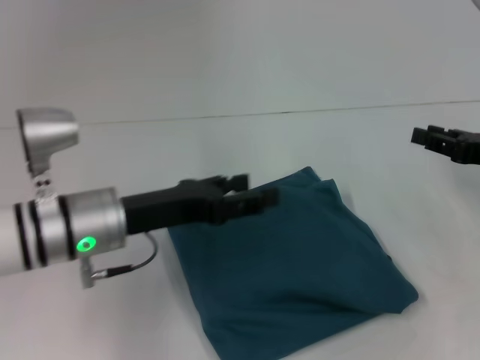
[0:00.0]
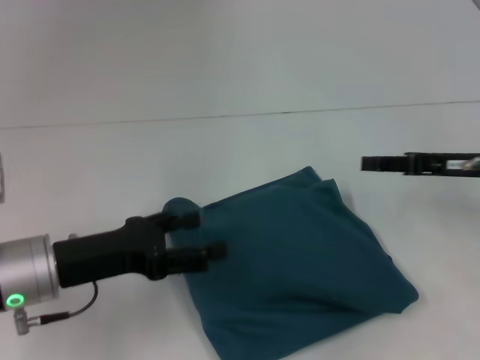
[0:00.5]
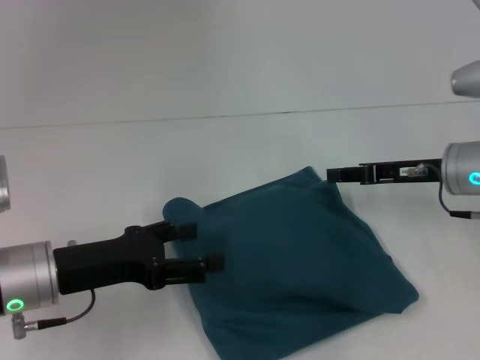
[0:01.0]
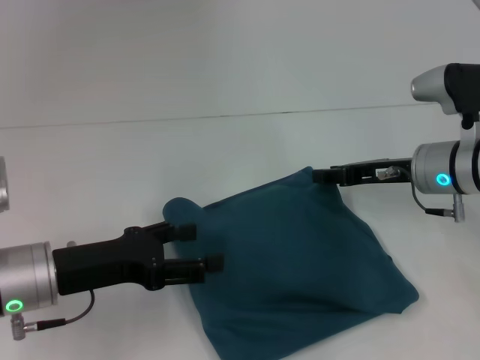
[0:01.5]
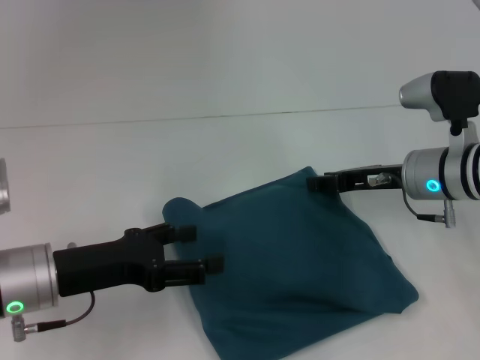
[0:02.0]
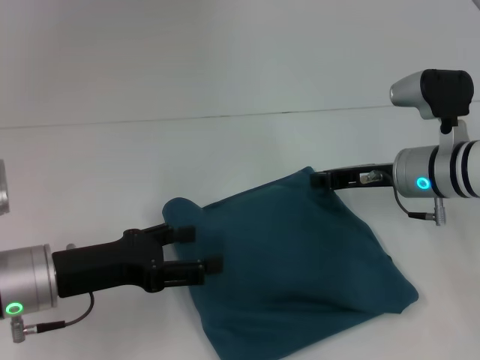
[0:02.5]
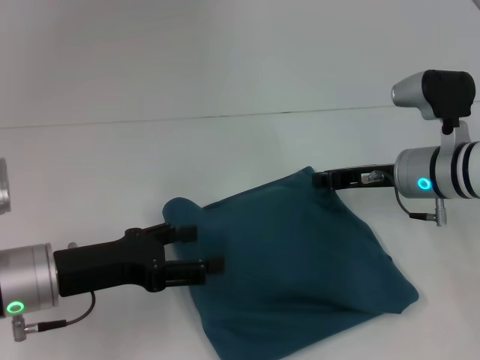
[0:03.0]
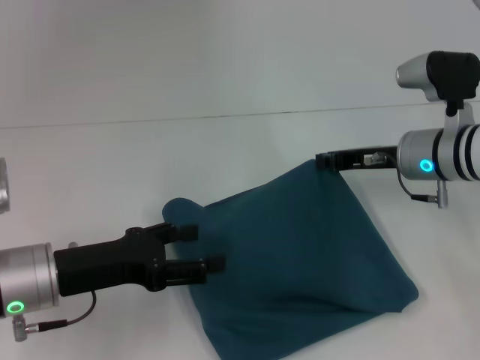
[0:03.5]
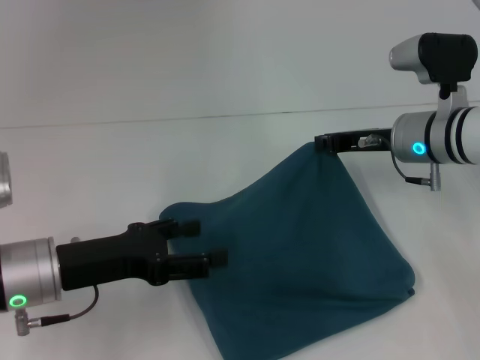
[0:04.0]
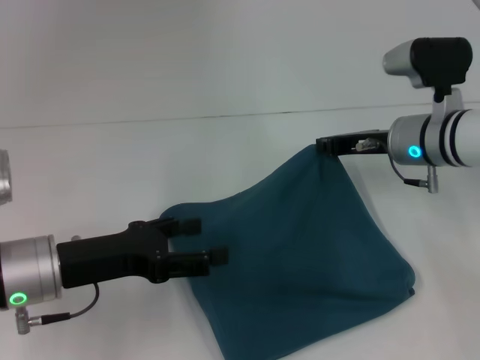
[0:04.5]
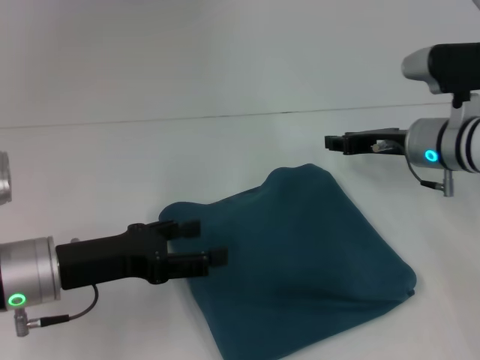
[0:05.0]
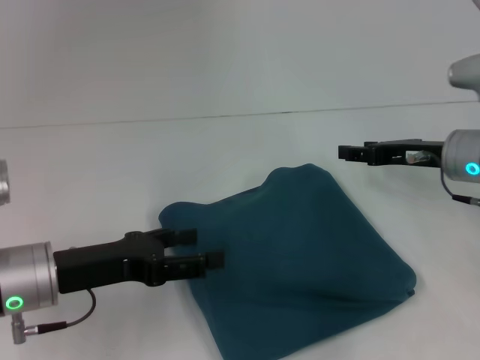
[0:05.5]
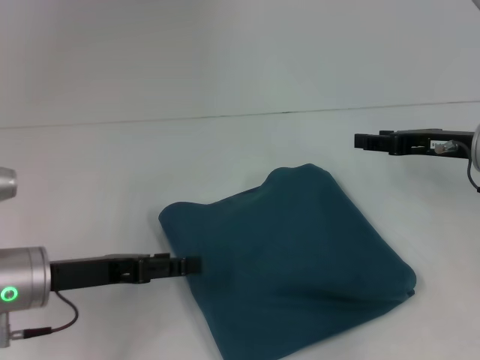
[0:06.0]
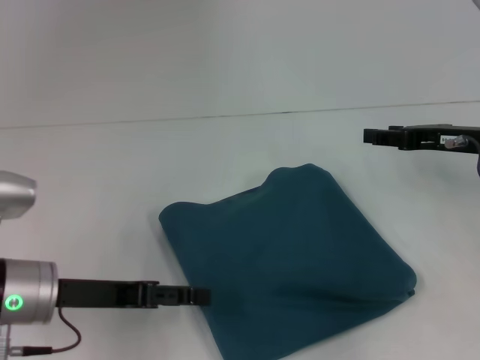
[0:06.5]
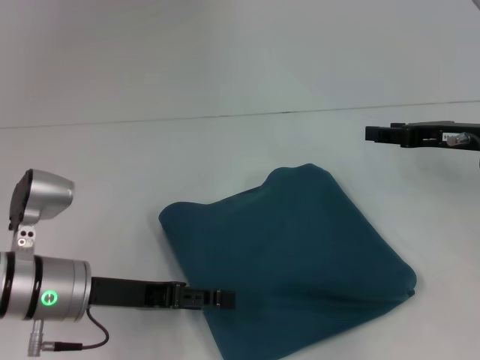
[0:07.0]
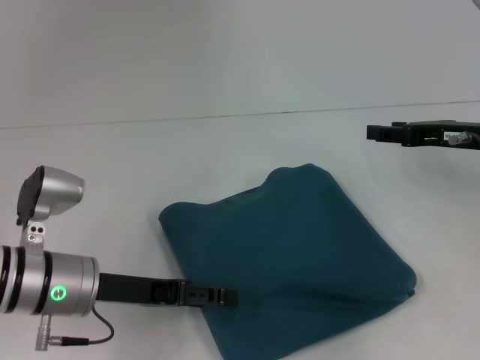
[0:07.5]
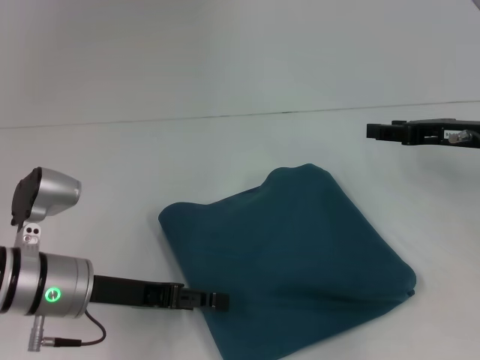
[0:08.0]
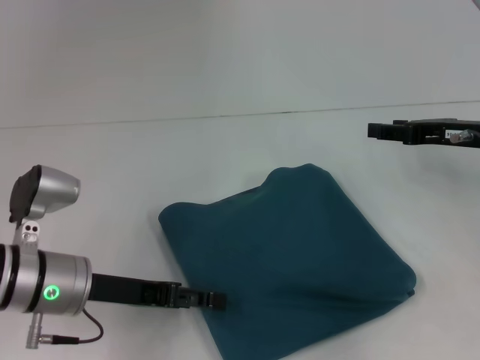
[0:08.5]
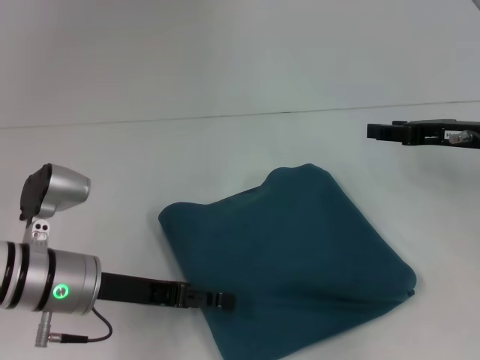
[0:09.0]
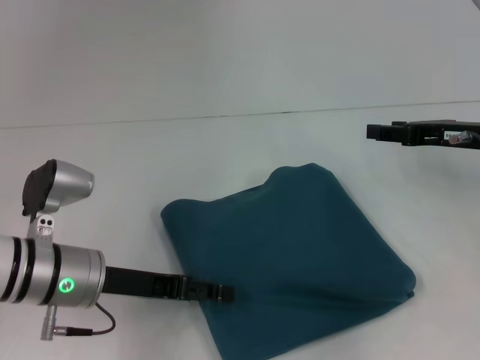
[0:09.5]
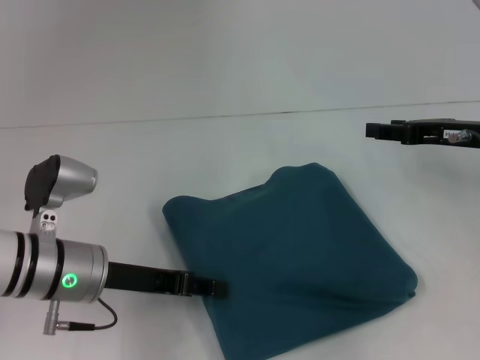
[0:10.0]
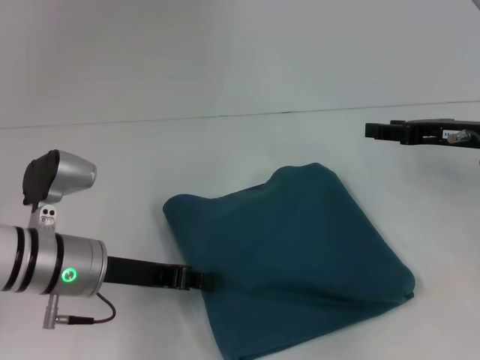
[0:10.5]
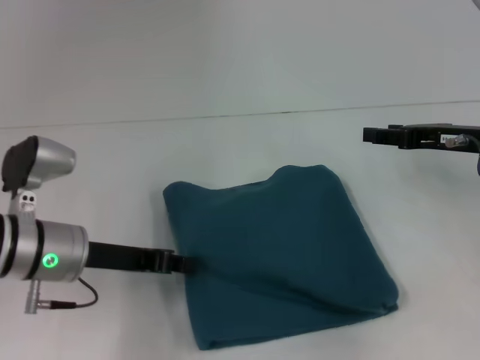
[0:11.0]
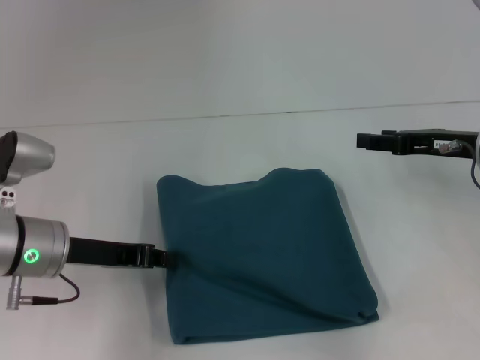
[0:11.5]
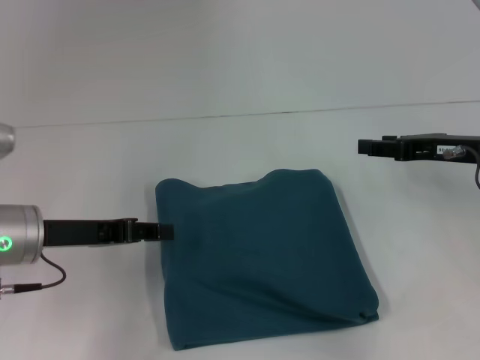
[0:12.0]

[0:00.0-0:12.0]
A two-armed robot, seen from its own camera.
0:00.0 to 0:02.0: The left gripper is displaced to the left by approximately 5 cm. Meanwhile the right gripper travels to the left and forward by some 15 cm.
0:02.0 to 0:04.0: The right gripper closes its fingers.
0:04.0 to 0:06.0: The right gripper travels to the right by roughly 5 cm, and opens its fingers.
0:06.0 to 0:10.0: The grippers stay close to where they were, moving slightly.
0:10.0 to 0:12.0: The left gripper travels to the left by approximately 5 cm, and closes.

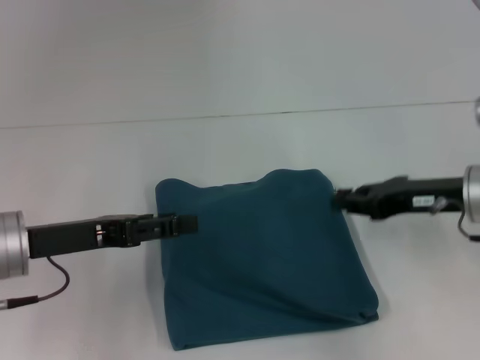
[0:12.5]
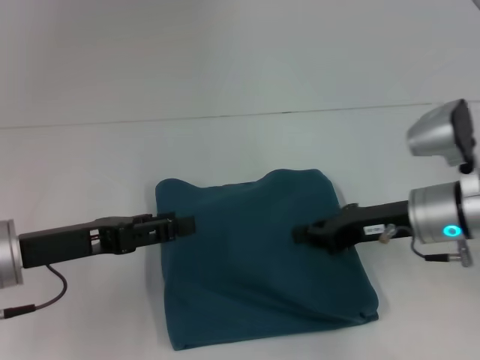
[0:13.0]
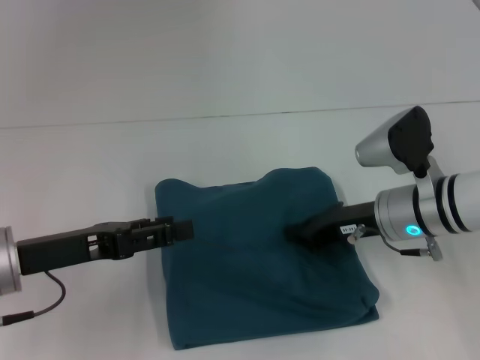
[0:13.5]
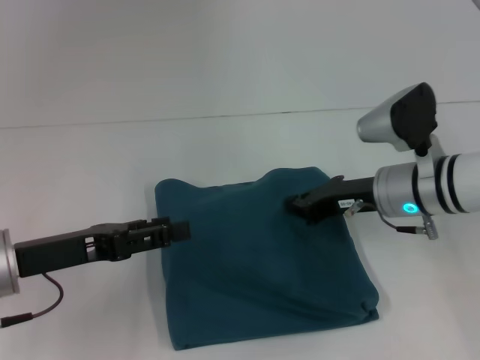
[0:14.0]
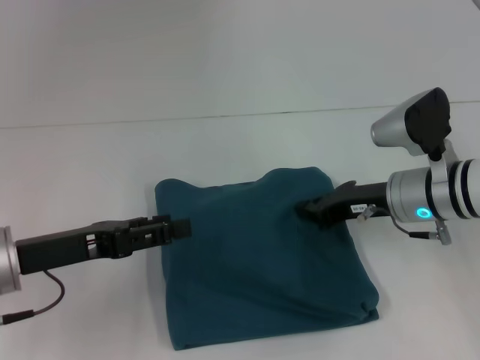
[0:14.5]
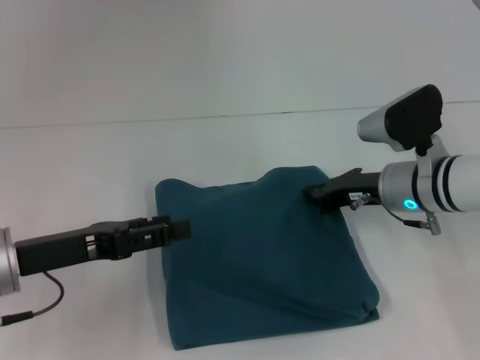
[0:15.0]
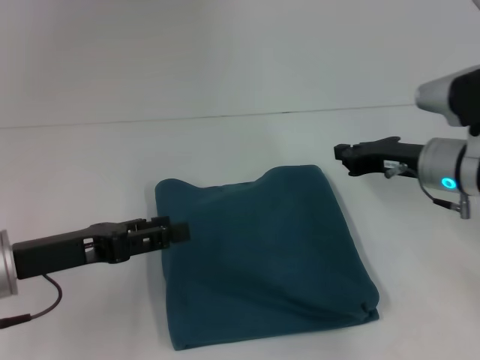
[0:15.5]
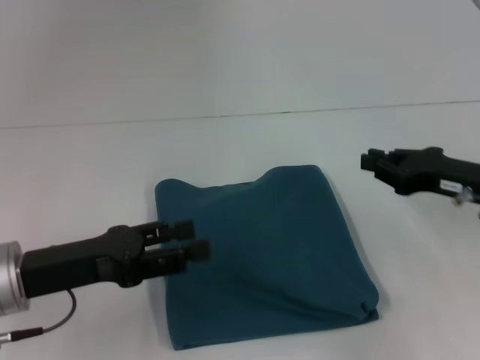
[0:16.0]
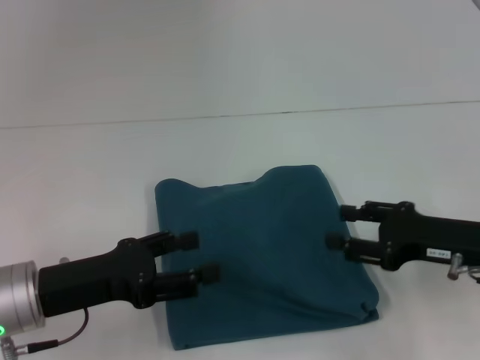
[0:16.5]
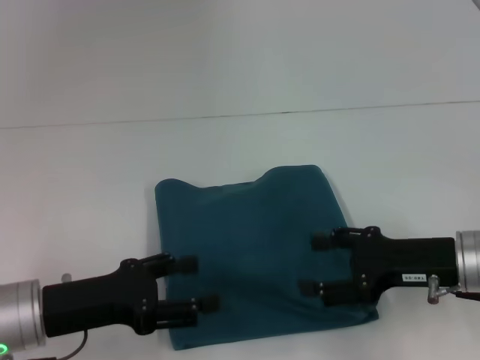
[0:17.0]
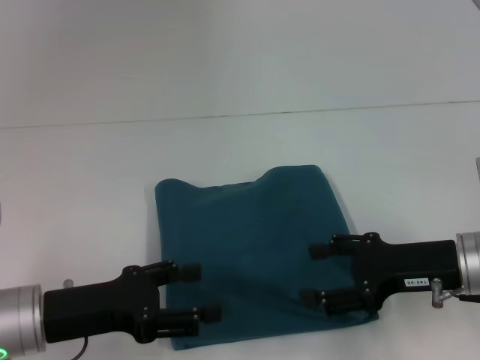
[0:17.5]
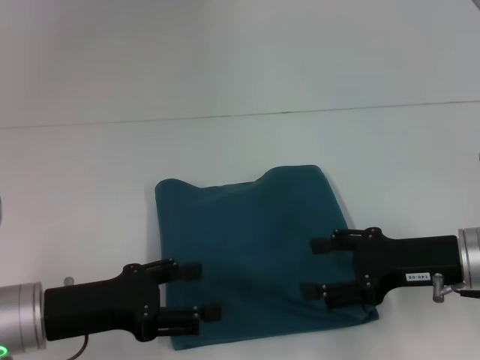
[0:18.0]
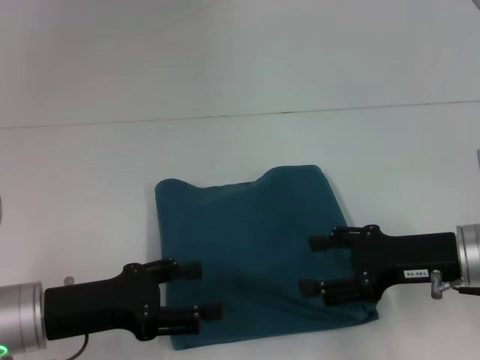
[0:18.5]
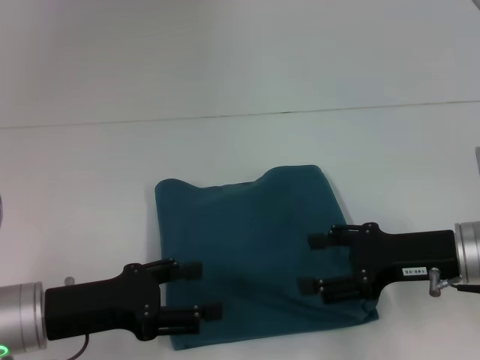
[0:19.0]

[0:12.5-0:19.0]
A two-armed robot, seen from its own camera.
0:12.5 to 0:14.5: The right gripper moves to the left, roughly 5 cm, and closes its fingers.
0:14.5 to 0:17.0: The right gripper travels backward by roughly 10 cm, and opens its fingers.
0:17.0 to 0:19.0: Both grippers stay about where they are.

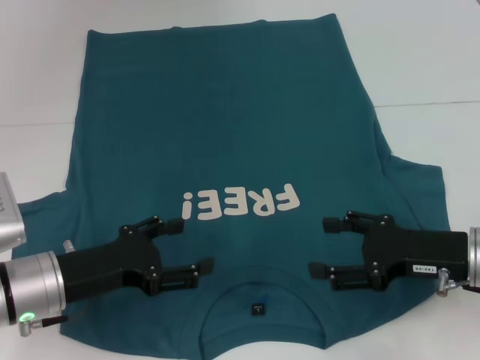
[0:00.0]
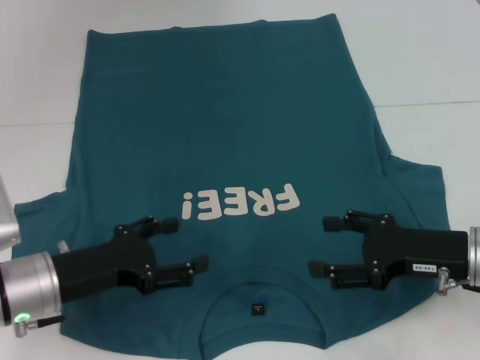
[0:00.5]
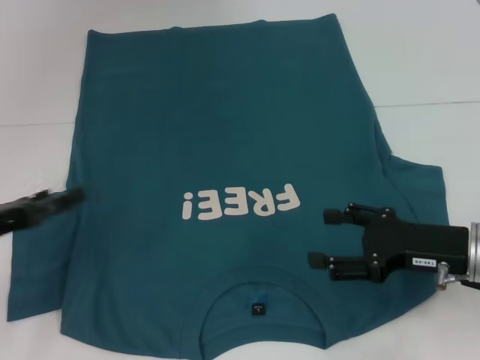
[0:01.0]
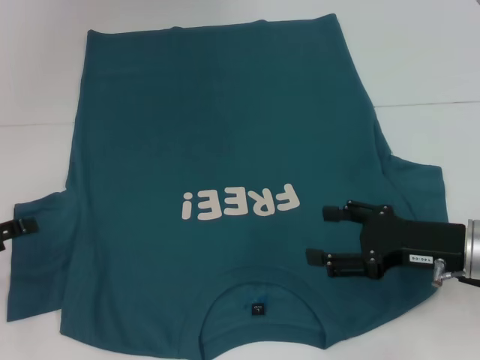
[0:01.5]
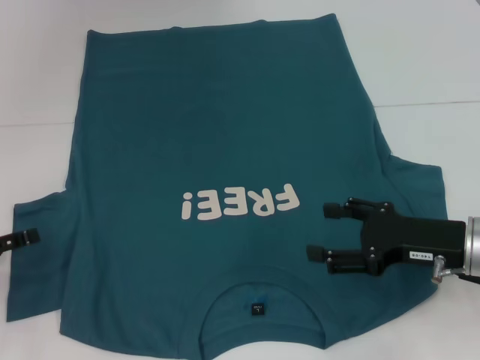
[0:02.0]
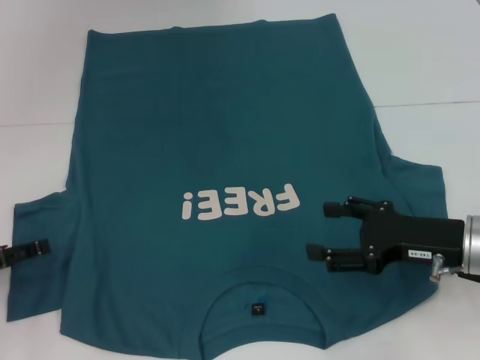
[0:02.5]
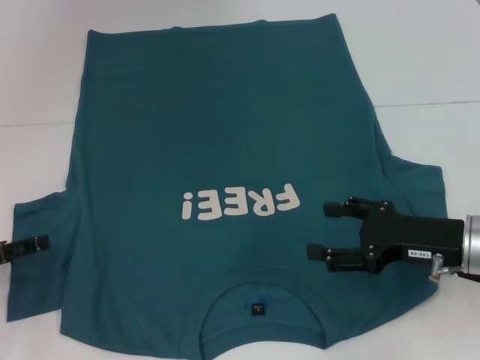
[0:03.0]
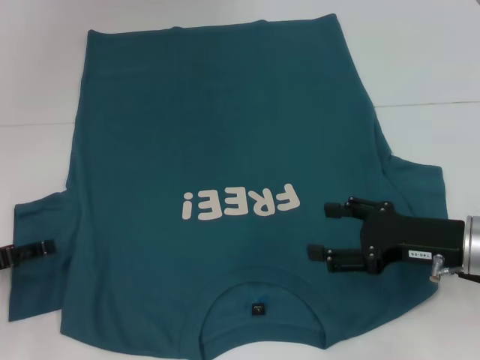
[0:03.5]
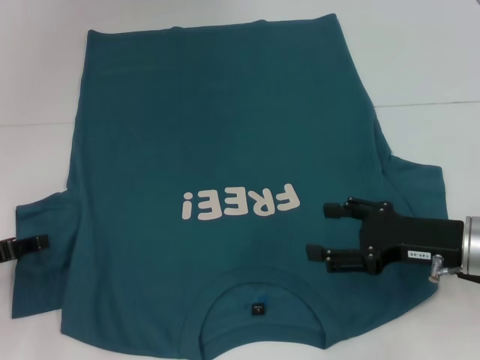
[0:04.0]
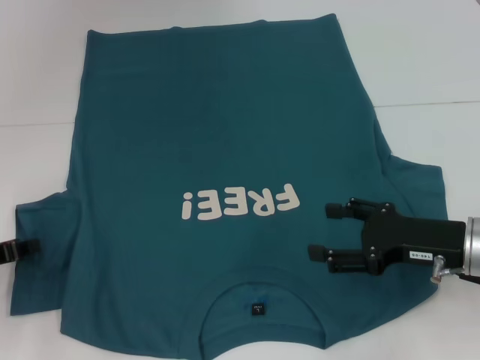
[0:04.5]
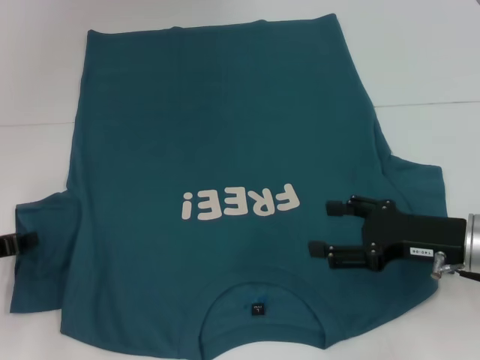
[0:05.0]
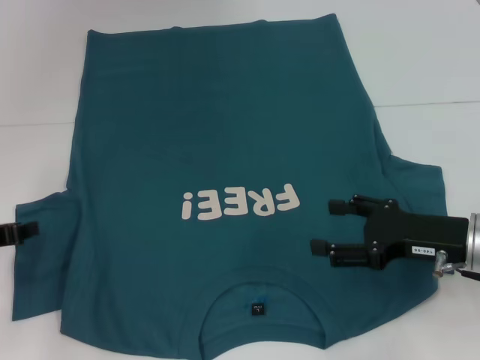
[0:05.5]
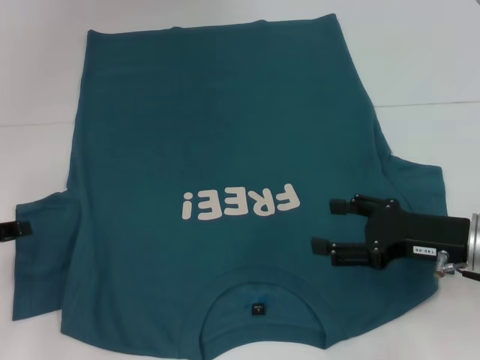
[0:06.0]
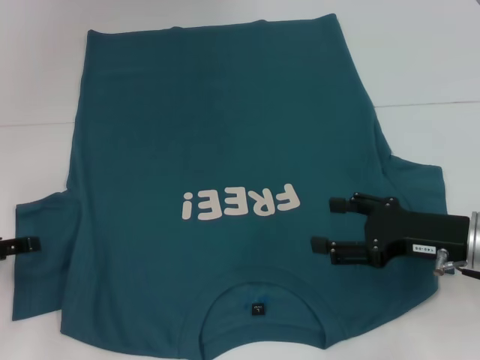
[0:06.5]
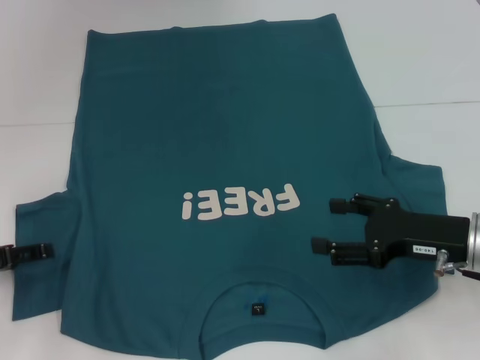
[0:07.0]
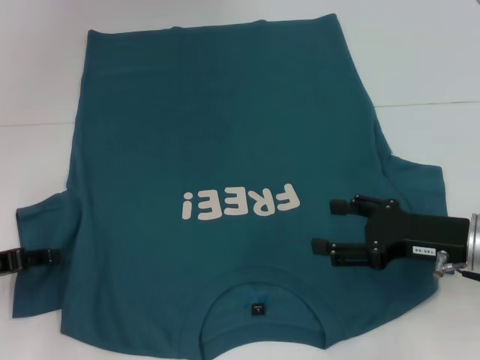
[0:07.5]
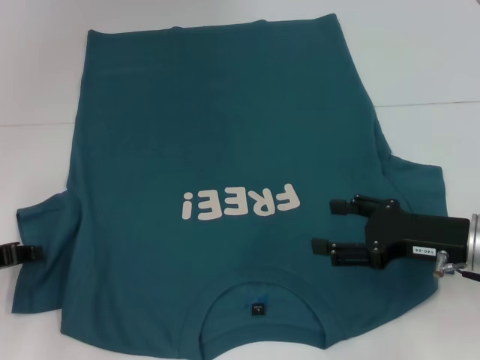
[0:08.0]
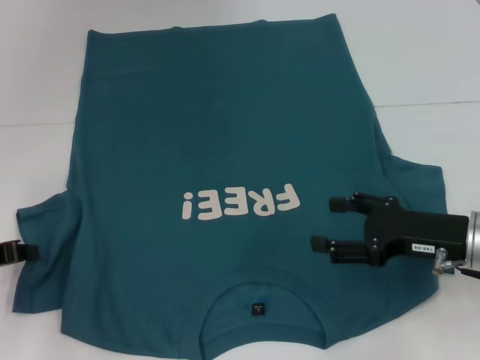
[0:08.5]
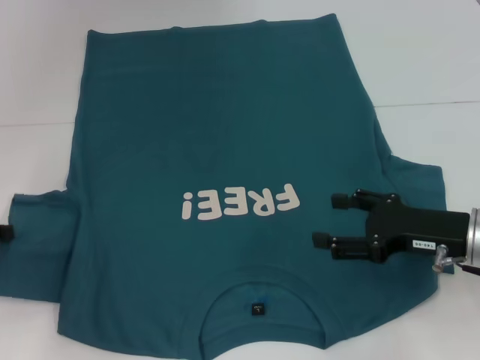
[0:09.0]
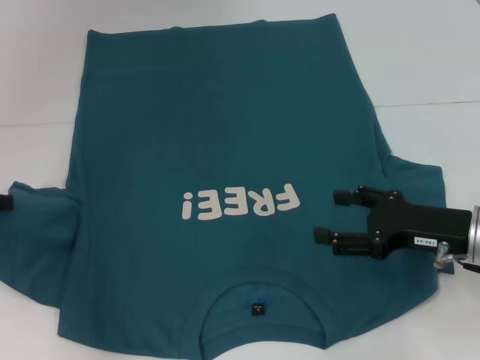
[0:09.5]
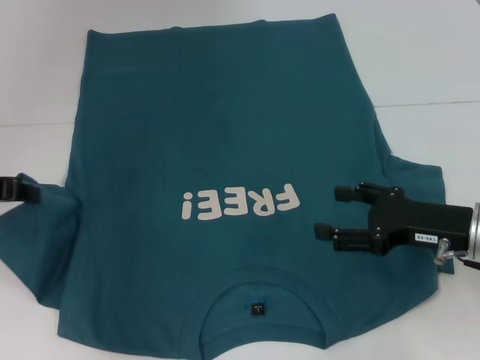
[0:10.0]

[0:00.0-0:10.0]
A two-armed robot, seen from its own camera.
0:00.0 to 0:02.0: The left gripper heads to the left, covering roughly 15 cm.
0:02.0 to 0:04.0: The grippers make only small movements.
0:04.0 to 0:06.0: The left gripper closes its fingers.
0:06.0 to 0:08.0: The left gripper opens, then closes again.
0:08.0 to 0:10.0: The left gripper moves upward, about 10 cm, and closes.
